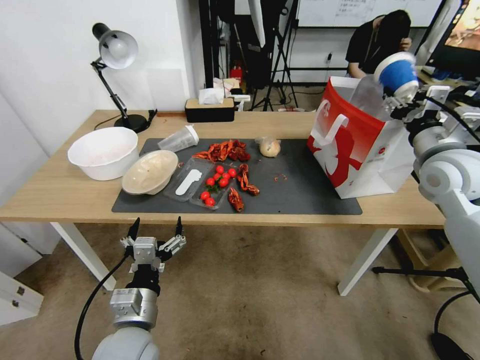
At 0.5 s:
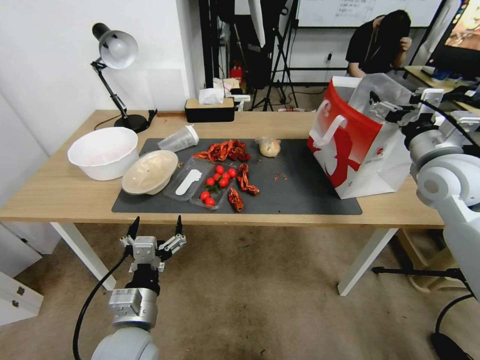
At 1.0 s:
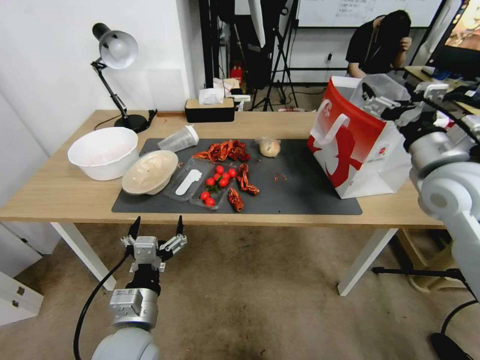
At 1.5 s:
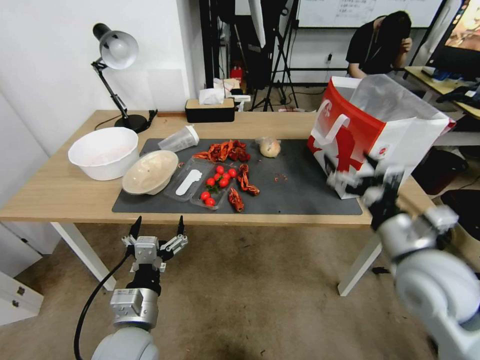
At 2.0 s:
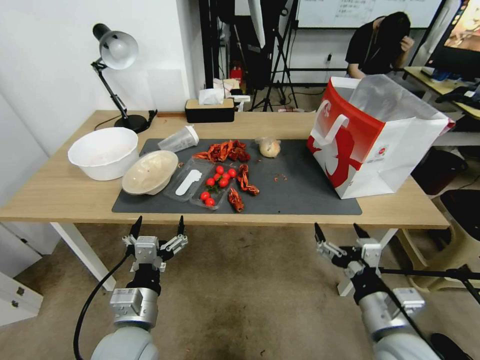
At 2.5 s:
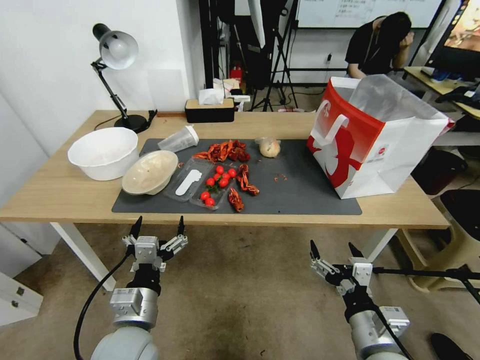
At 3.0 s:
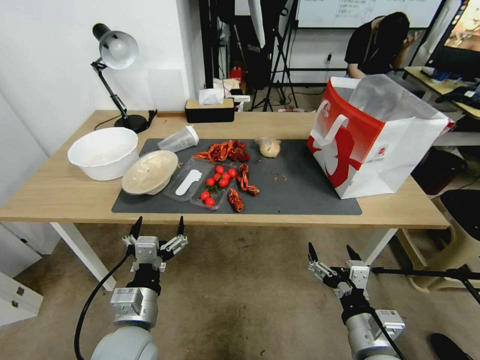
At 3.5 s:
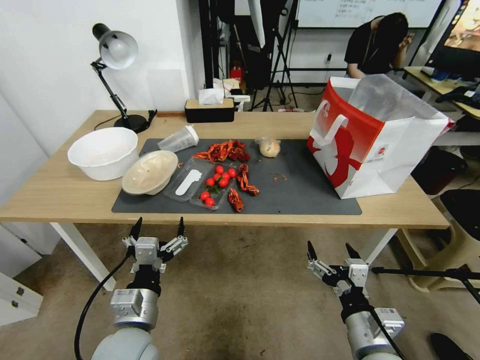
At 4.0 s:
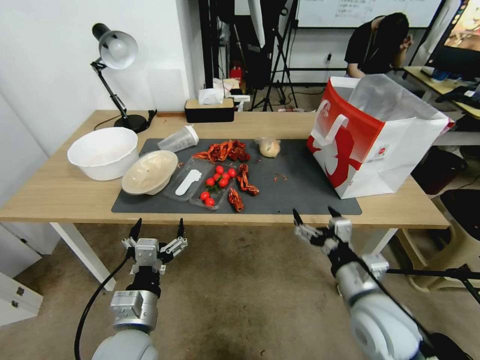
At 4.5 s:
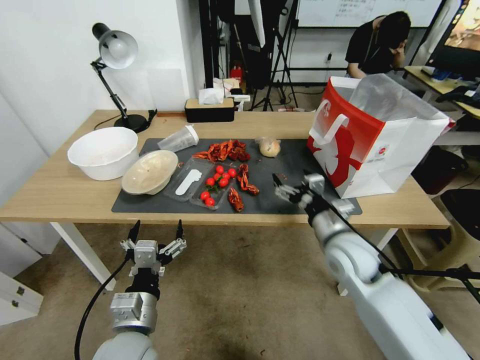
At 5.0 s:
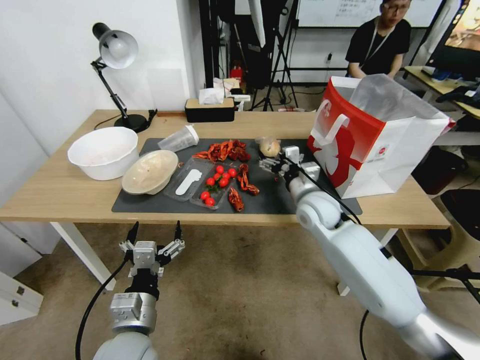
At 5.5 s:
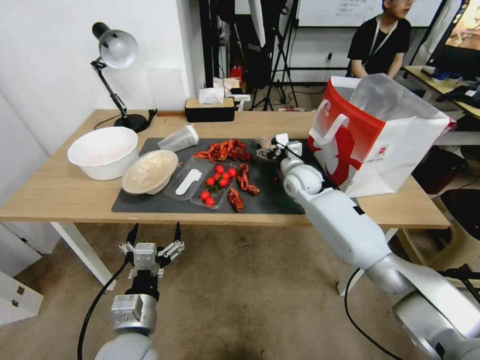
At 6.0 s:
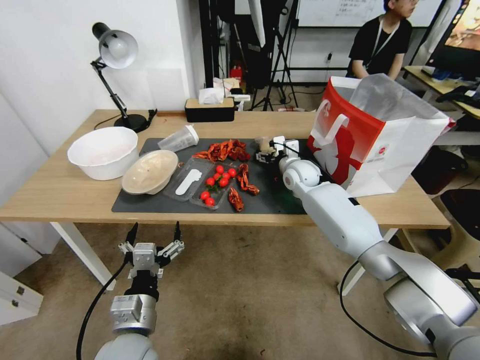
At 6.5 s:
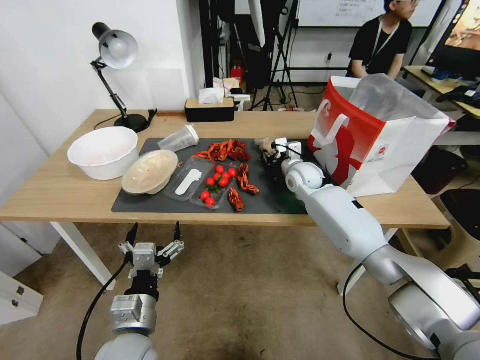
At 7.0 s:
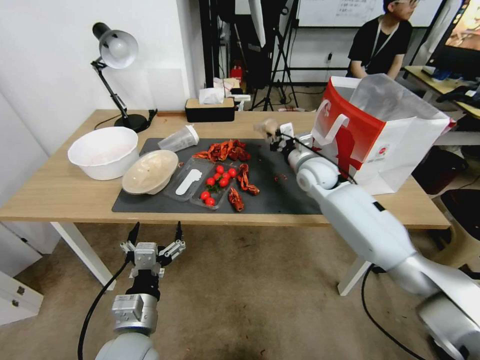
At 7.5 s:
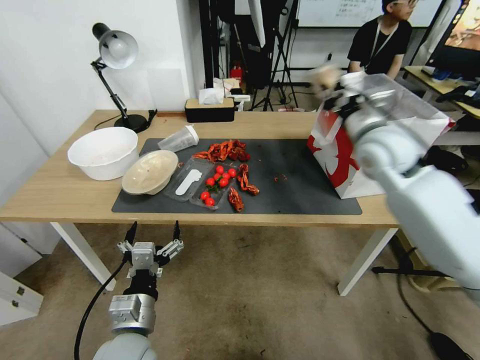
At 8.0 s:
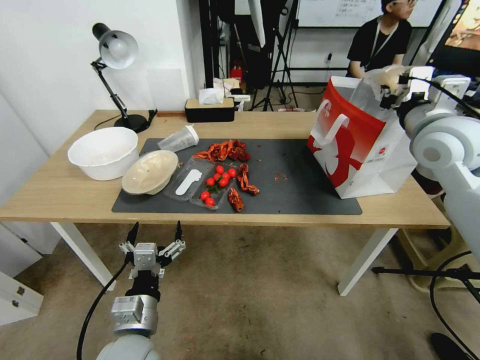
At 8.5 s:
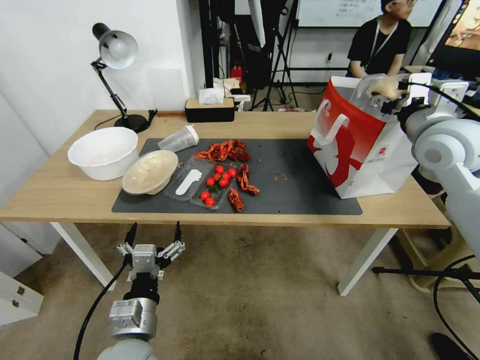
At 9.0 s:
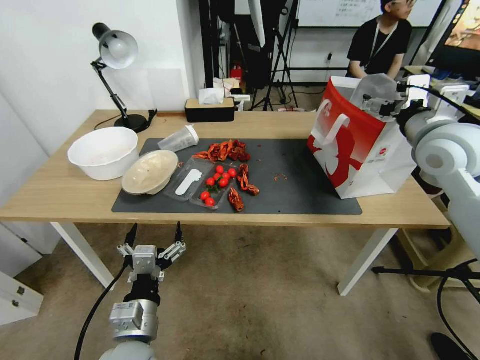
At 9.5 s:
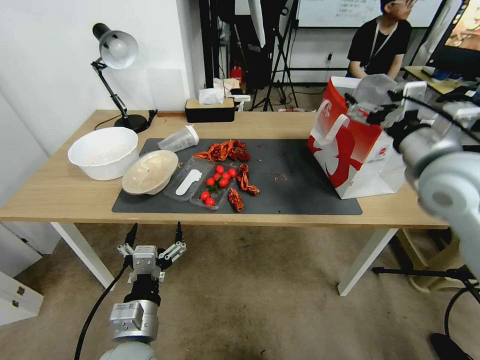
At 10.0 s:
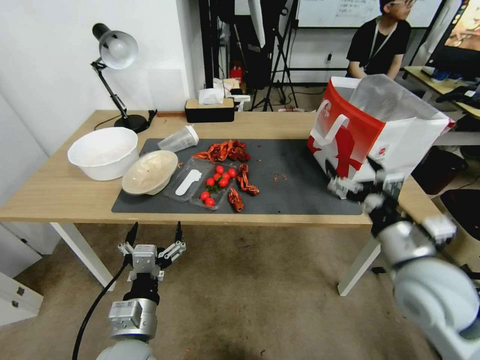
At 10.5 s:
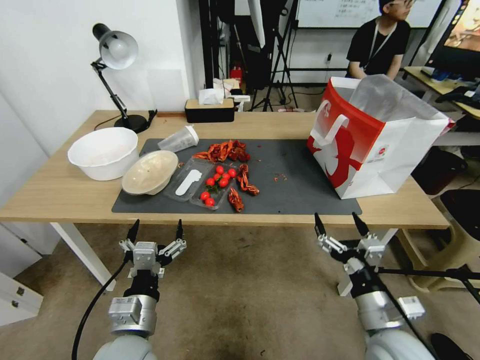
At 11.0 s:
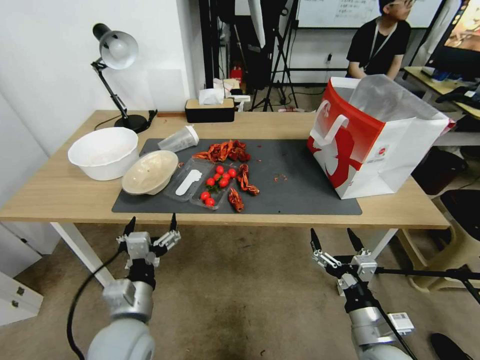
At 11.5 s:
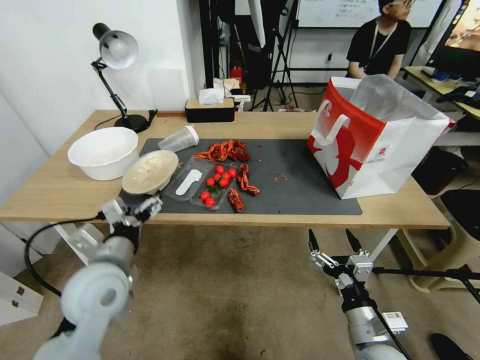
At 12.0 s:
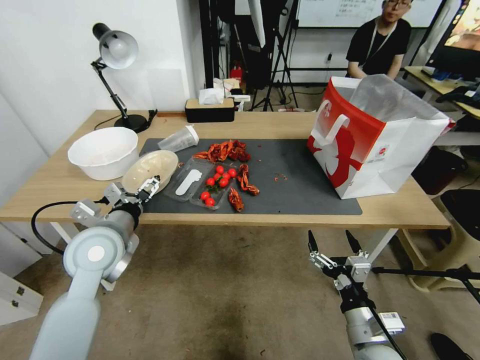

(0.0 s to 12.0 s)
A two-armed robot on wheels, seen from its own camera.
0.0 s - 2.0 s: The right gripper goes about 35 cm backward, downward and to the left, and opens up.
2.0 s - 4.0 s: The right gripper goes roughly 5 cm forward.
4.0 s - 6.0 s: The right gripper travels forward by approximately 35 cm.
6.0 s - 8.0 s: The right gripper moves upward, to the right and backward, roughly 30 cm, and closes.
8.0 s - 10.0 s: The right gripper is displaced backward and downward by about 25 cm, and opens its fingers.
10.0 s - 12.0 s: The right gripper travels downward and backward by roughly 20 cm; the left gripper goes roughly 20 cm forward, upward and to the left.

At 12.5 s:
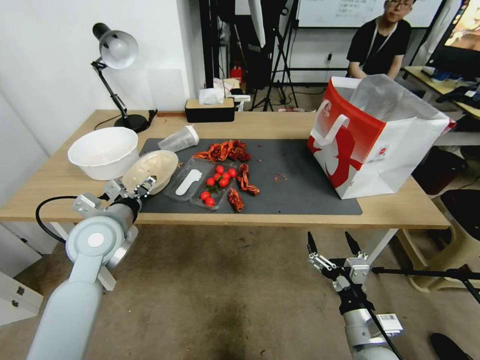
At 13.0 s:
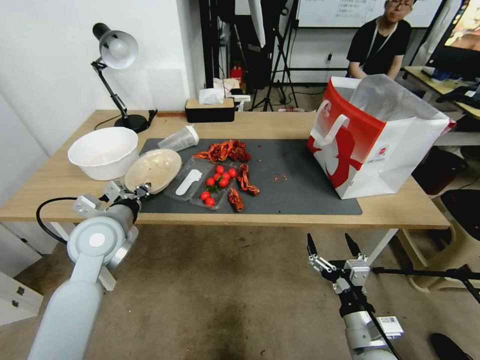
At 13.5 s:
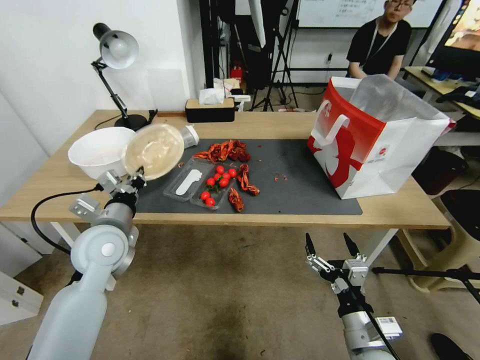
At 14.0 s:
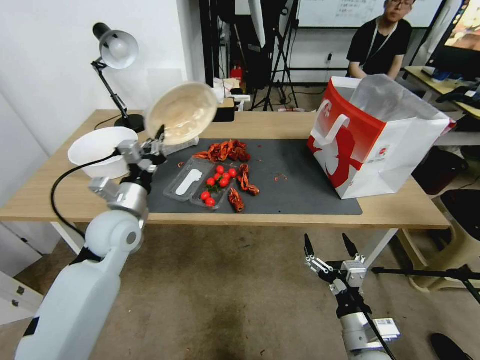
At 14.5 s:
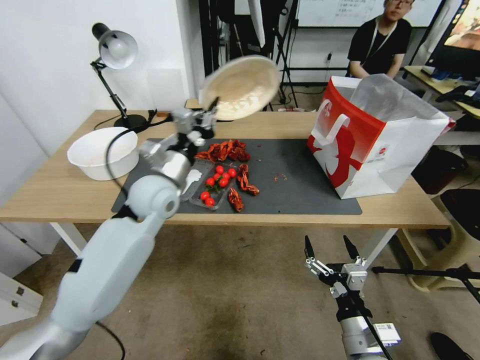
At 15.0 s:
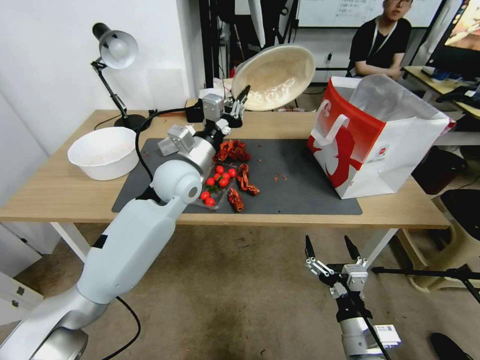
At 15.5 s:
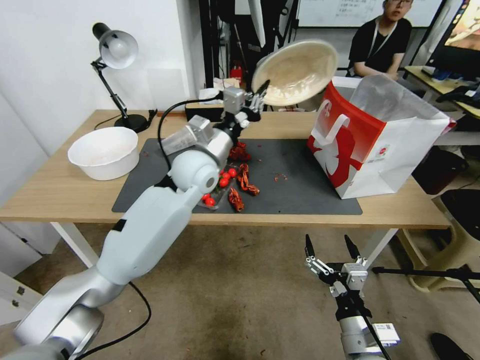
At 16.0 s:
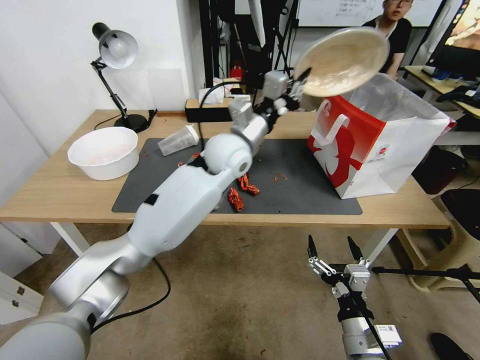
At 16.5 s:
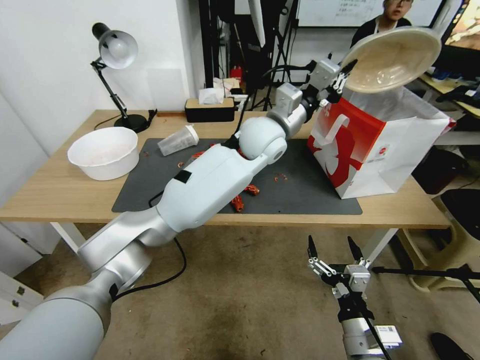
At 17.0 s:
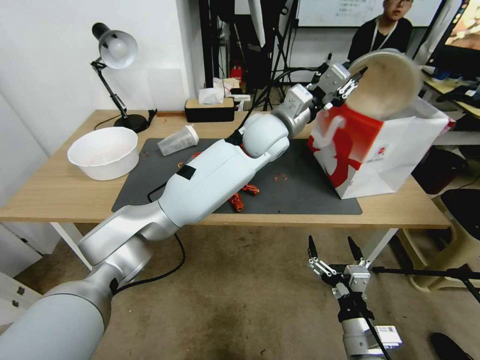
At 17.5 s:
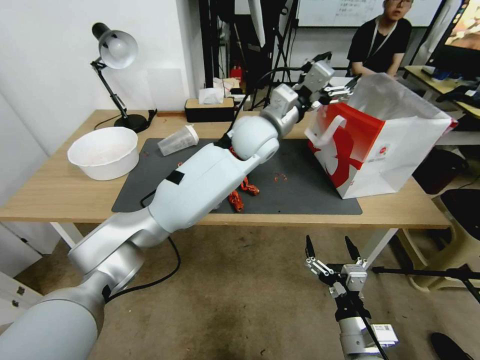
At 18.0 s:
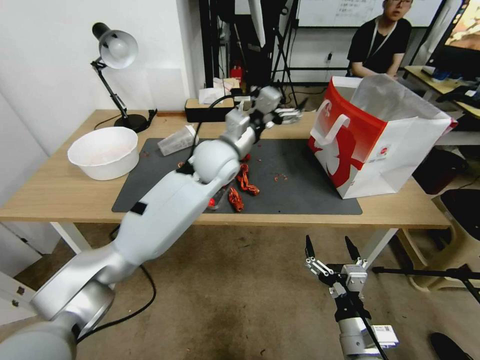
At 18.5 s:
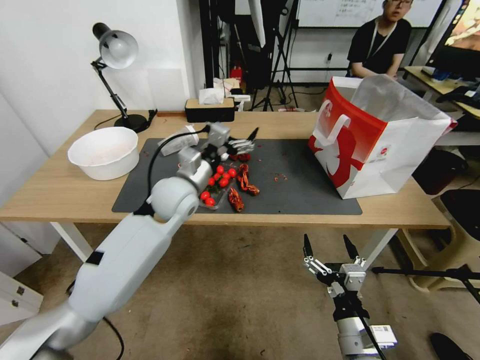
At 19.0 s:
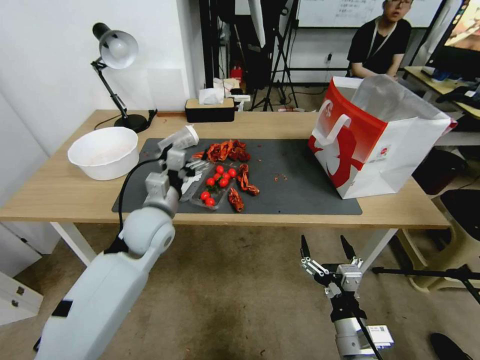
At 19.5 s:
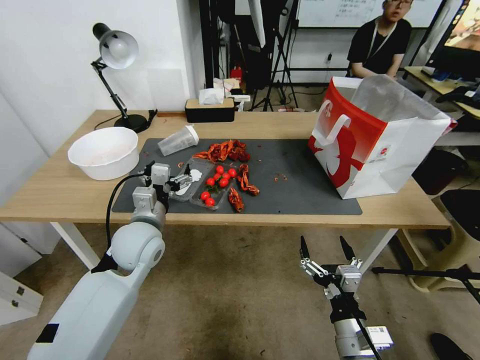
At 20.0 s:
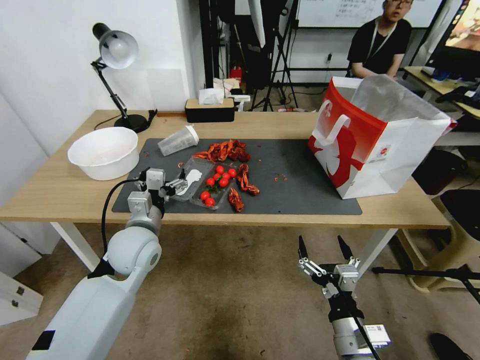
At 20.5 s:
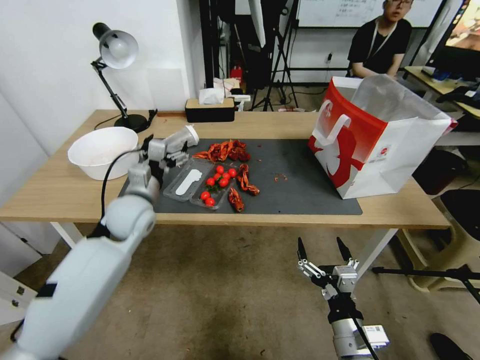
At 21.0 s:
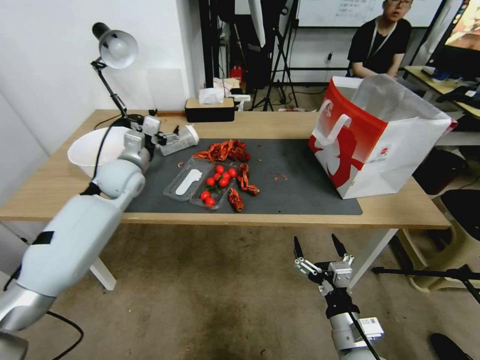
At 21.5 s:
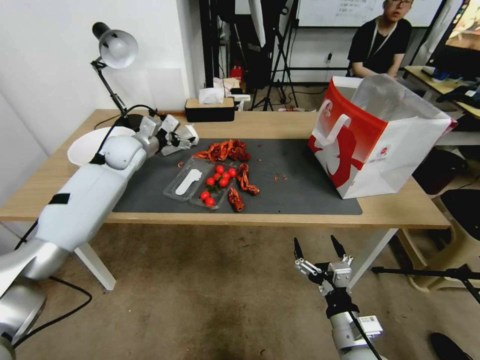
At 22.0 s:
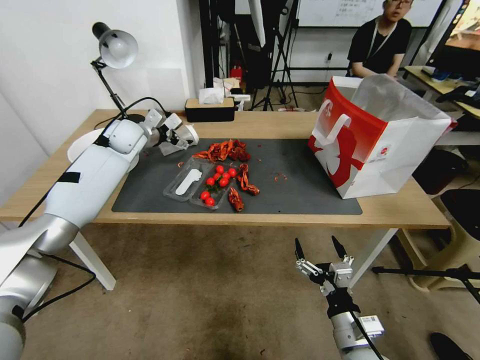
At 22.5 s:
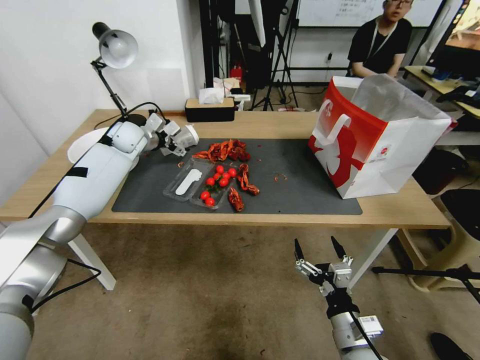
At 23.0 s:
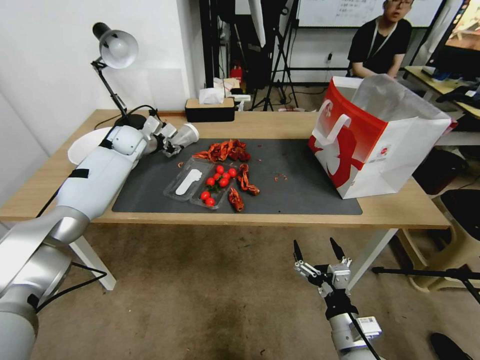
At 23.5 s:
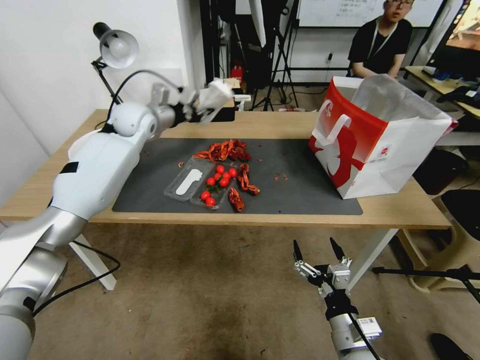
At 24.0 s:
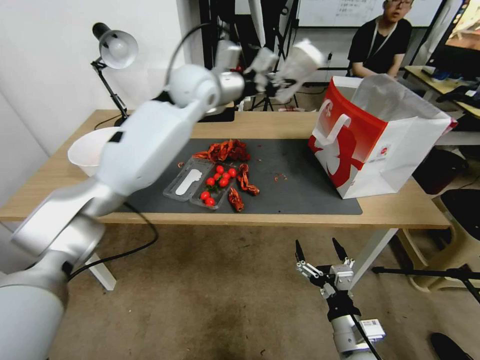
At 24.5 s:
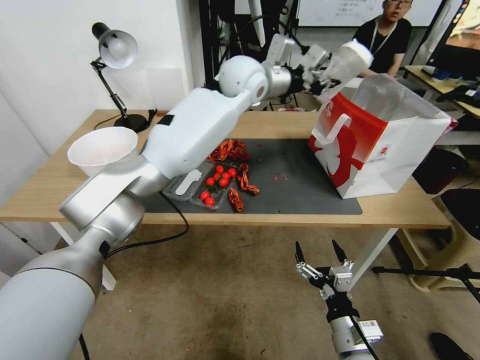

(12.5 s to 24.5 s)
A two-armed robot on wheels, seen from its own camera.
12.5 s - 14.5 s: The left gripper ends up approximately 5 cm from where it was, and closes up.
14.5 s - 16.5 s: The left gripper travels to the right, forward and upward by some 35 cm.
16.5 s - 18.5 s: The left gripper heads to the left and downward, covering roughly 20 cm, and opens.
18.5 s - 20.5 s: The left gripper heads to the left, covering about 10 cm.
20.5 s - 22.5 s: The left gripper heads forward, covering roughly 20 cm.
22.5 s - 24.5 s: The left gripper heads to the right and upward, covering approximately 35 cm, and closes its fingers.

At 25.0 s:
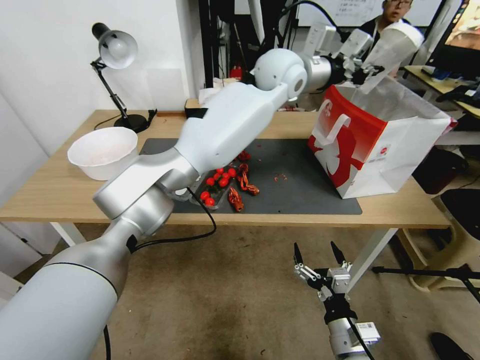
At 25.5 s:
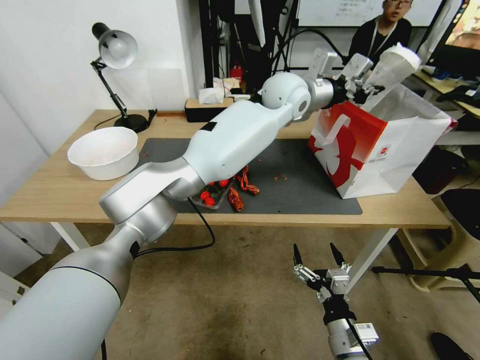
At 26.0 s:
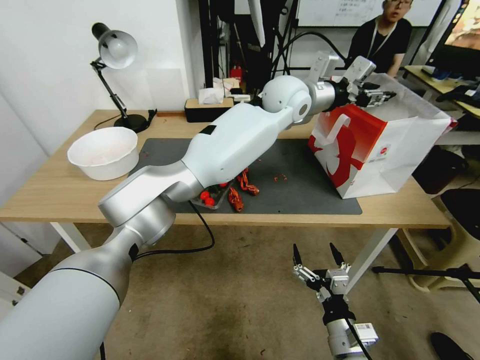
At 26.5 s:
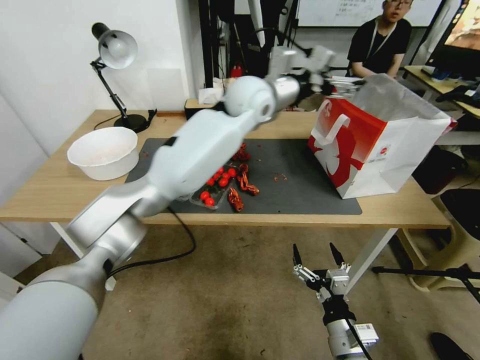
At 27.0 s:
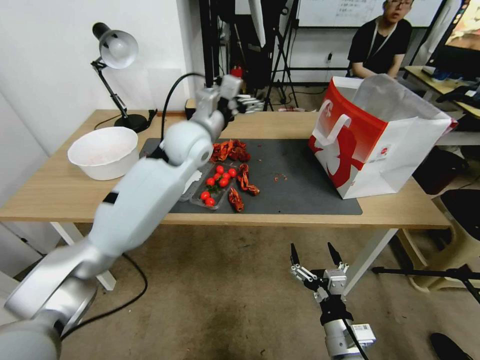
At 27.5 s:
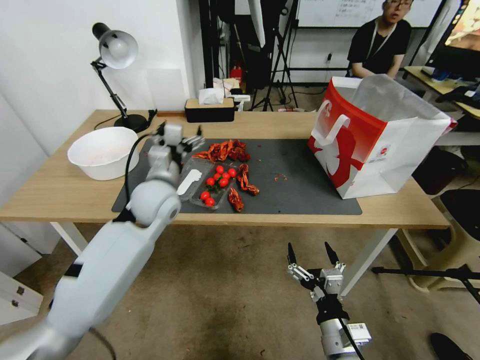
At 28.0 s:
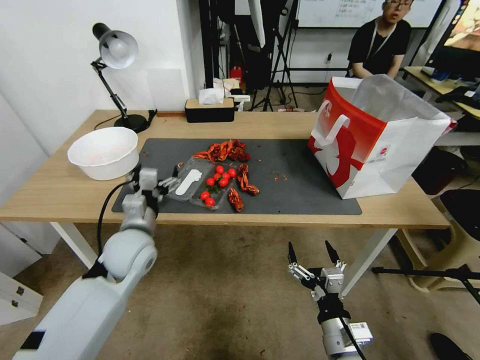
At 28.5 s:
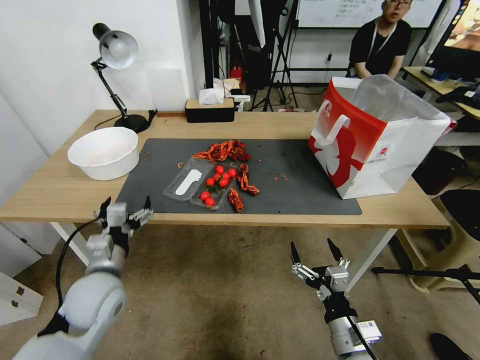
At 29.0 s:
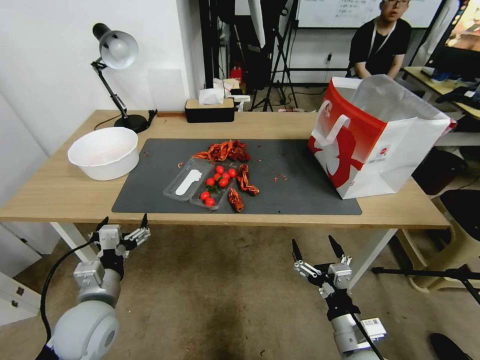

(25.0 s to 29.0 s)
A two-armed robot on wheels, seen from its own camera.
25.0 s - 27.0 s: The left gripper travels to the left and downward by about 20 cm, and opens its fingers.
27.0 s - 29.0 s: The left gripper travels backward, downward and to the left by about 40 cm.
